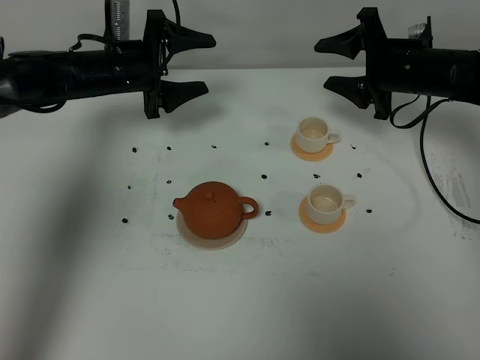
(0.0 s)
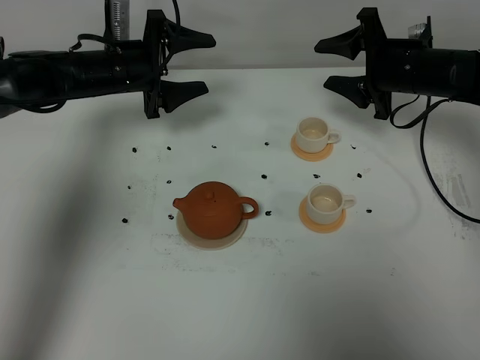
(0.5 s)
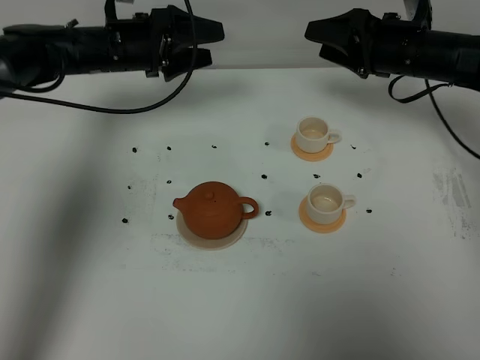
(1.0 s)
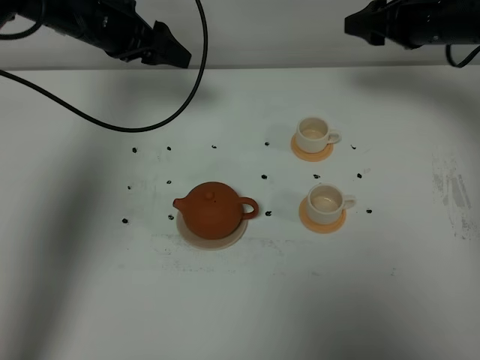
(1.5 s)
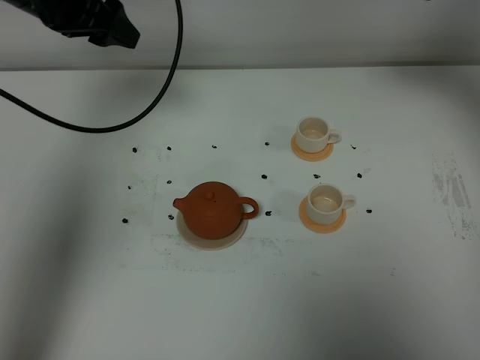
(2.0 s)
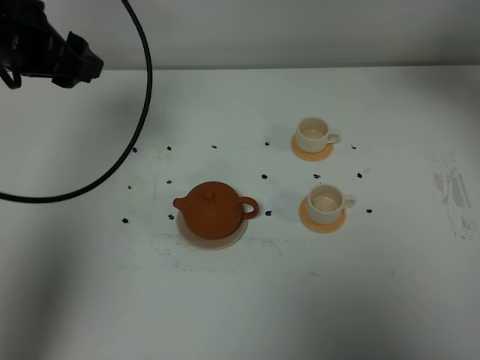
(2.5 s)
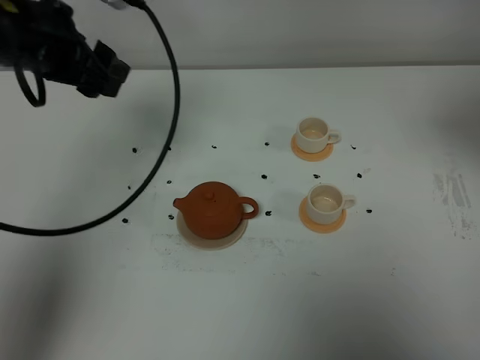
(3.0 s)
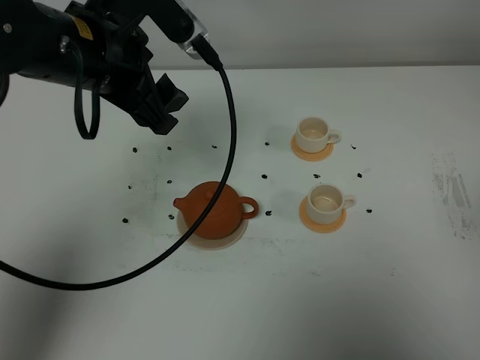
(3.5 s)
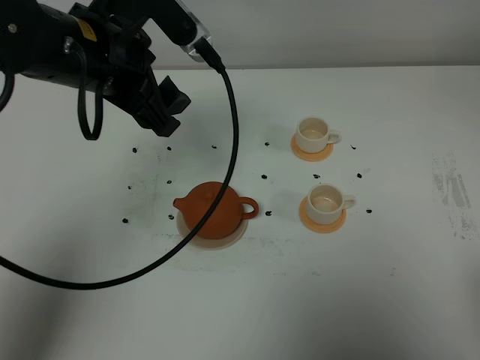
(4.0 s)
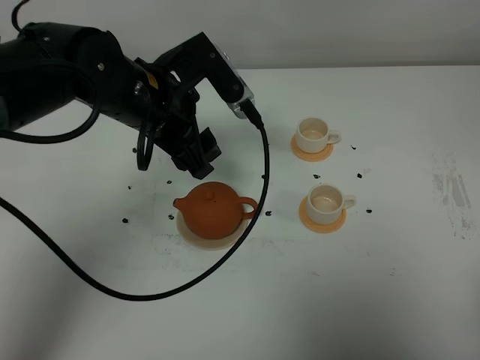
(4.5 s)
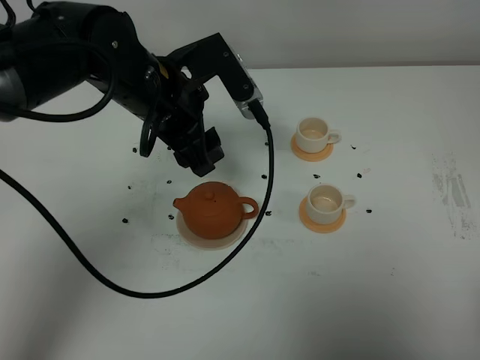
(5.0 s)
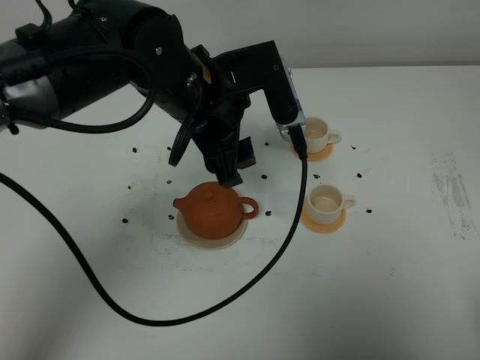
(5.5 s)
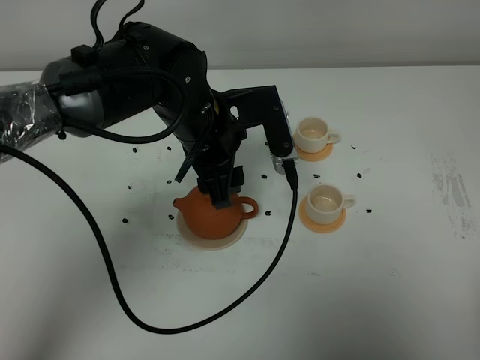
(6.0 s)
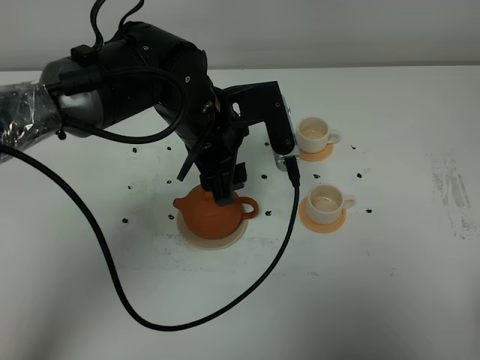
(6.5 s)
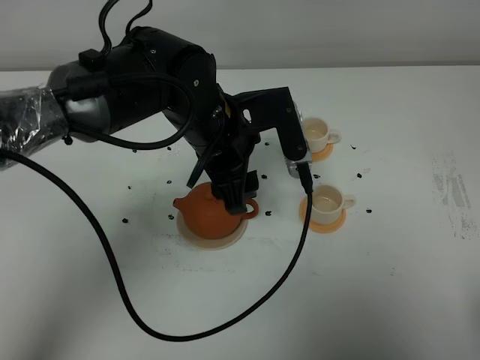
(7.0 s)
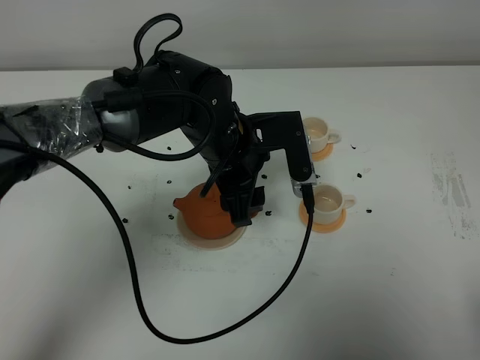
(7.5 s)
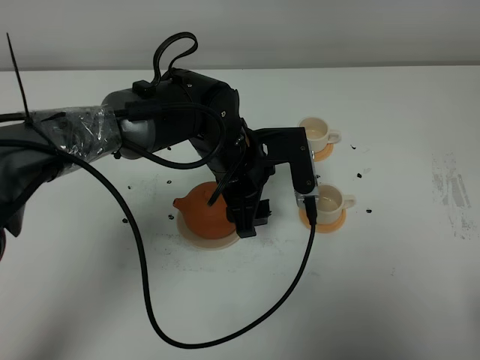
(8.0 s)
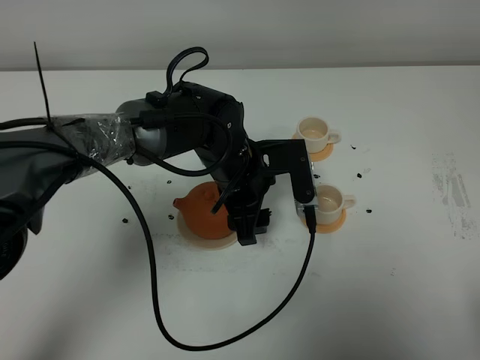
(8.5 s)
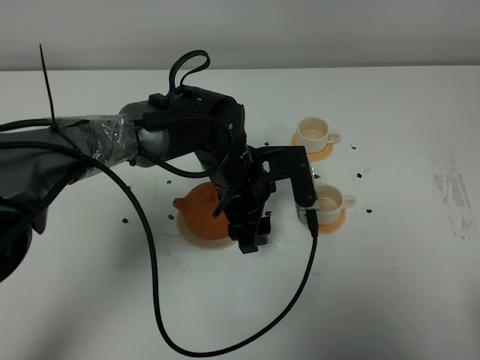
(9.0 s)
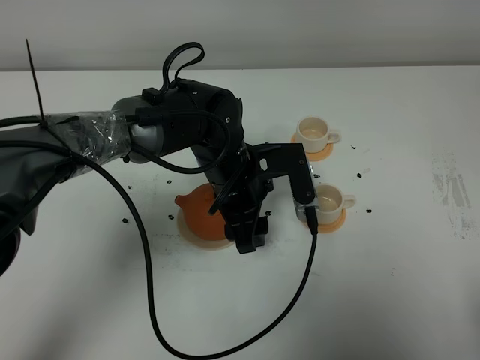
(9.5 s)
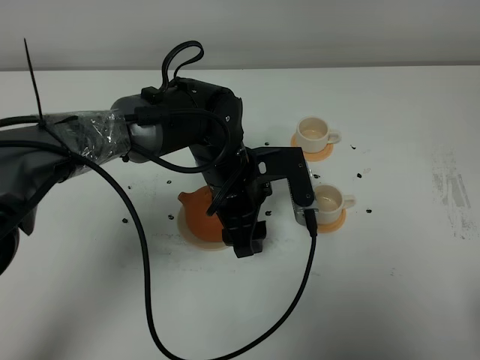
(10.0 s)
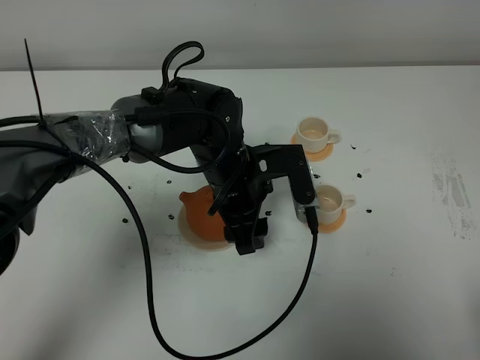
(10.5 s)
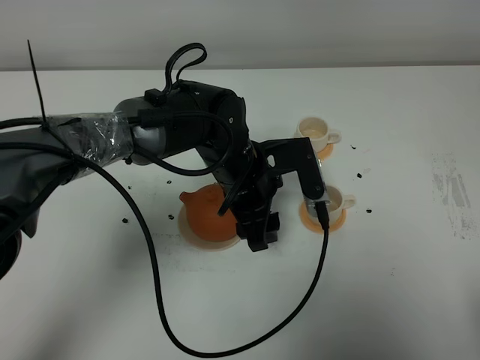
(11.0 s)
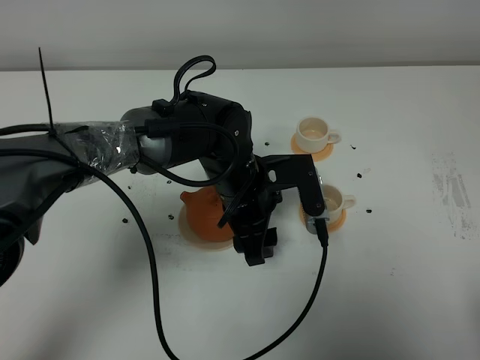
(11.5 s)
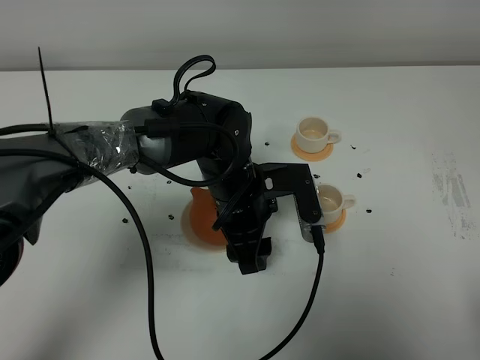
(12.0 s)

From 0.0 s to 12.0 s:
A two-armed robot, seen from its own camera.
Task of the whole recording: grasp the brown teapot and pour the tea into the two white teacups one by one, put the brown teapot back in its original place.
From 0.0 s to 2.0 s: The two grippers go about 15 cm upward.
From 2.0 s to 4.0 s: The right gripper goes approximately 40 cm backward. Meanwhile the left gripper is displaced backward and to the right by about 15 cm.
From 4.0 s to 6.0 s: The left gripper shifts some 15 cm downward and to the right. The right gripper travels downward by some 10 cm.
From 6.0 s to 8.0 s: The left gripper shifts approximately 5 cm downward.
From 8.0 s to 12.0 s: The grippers move only a little.

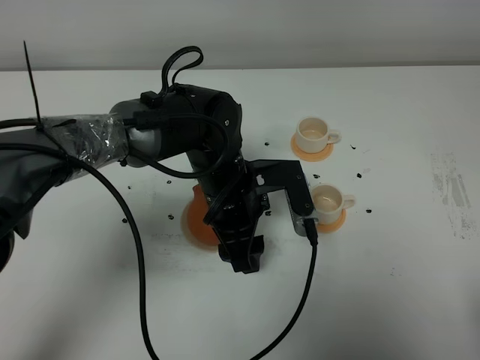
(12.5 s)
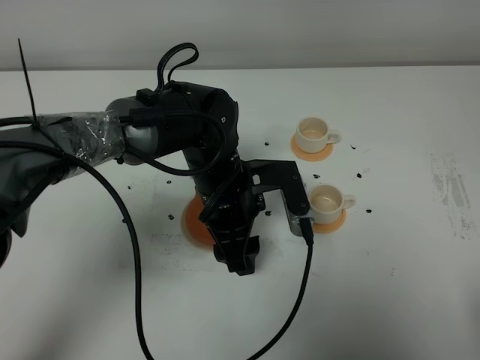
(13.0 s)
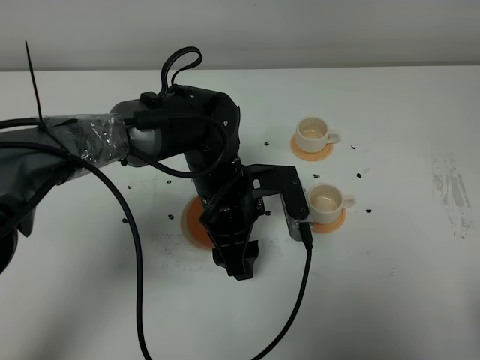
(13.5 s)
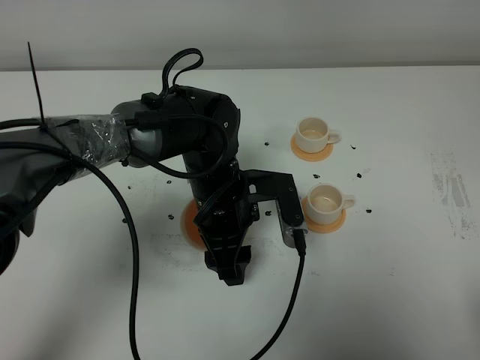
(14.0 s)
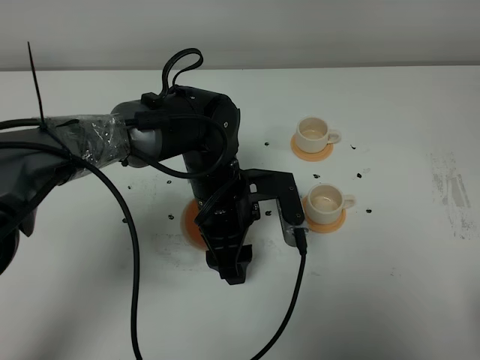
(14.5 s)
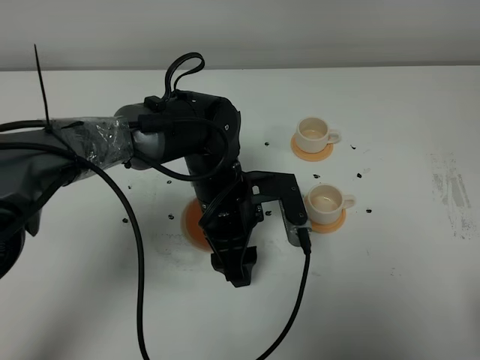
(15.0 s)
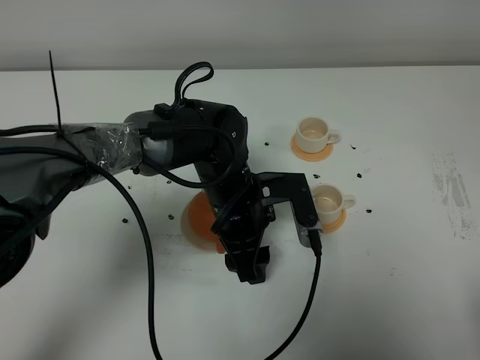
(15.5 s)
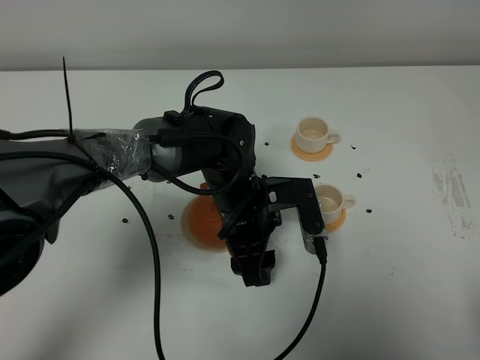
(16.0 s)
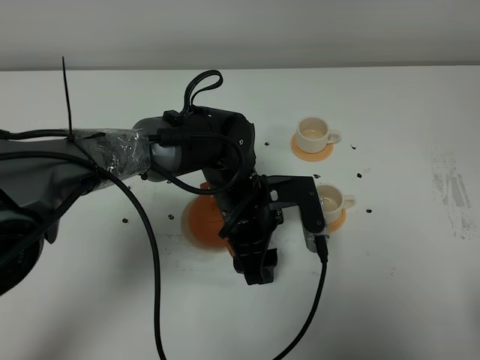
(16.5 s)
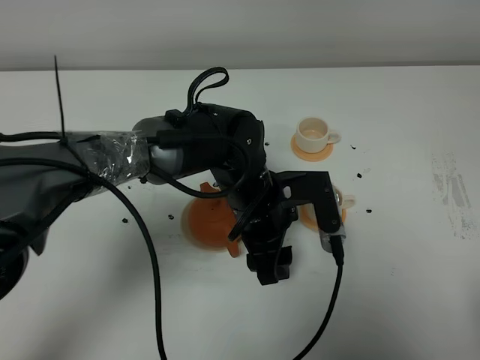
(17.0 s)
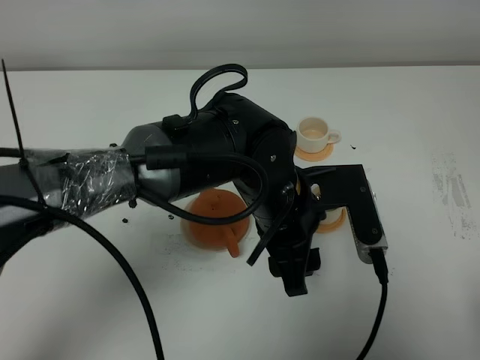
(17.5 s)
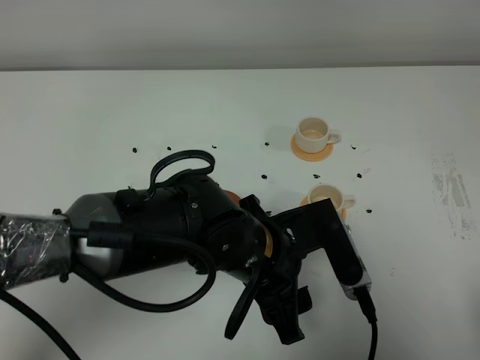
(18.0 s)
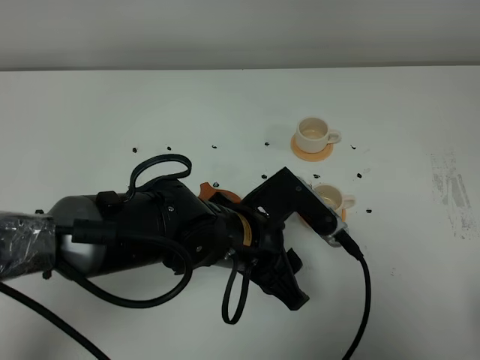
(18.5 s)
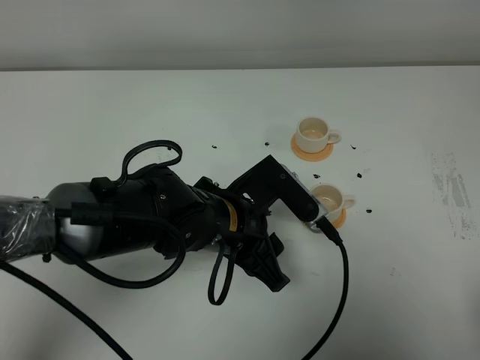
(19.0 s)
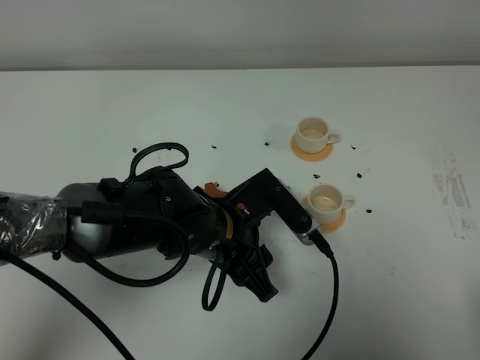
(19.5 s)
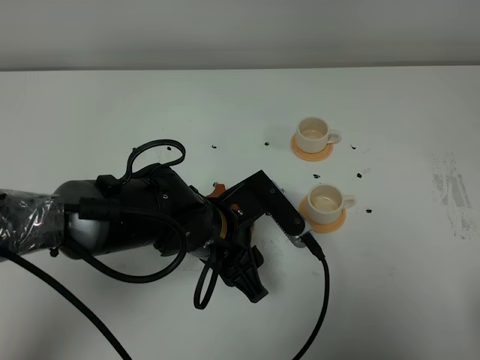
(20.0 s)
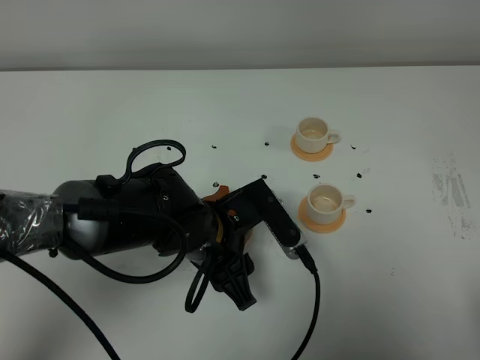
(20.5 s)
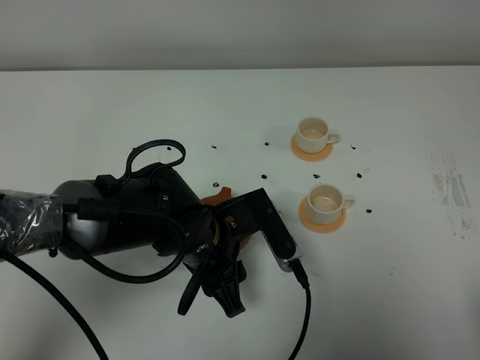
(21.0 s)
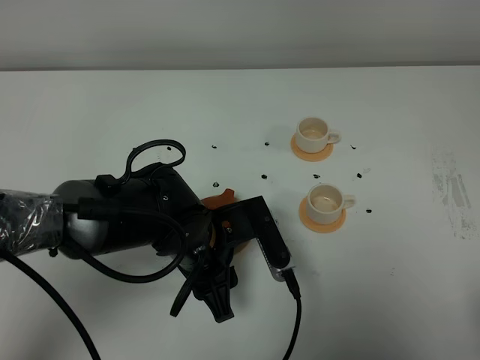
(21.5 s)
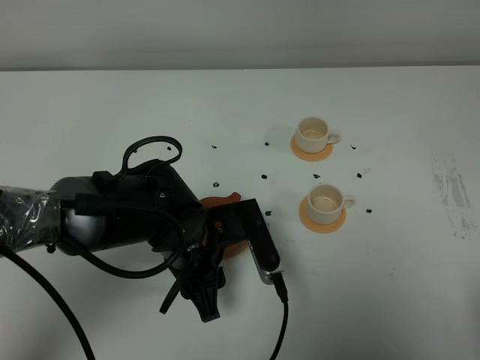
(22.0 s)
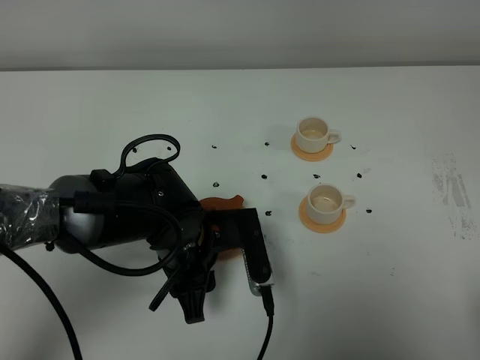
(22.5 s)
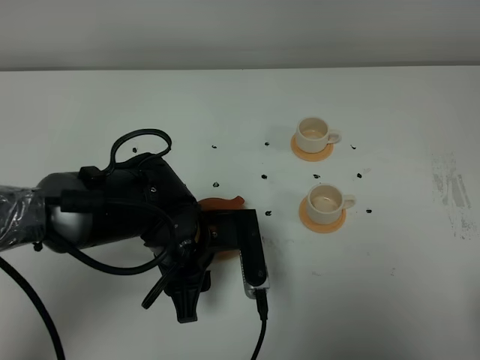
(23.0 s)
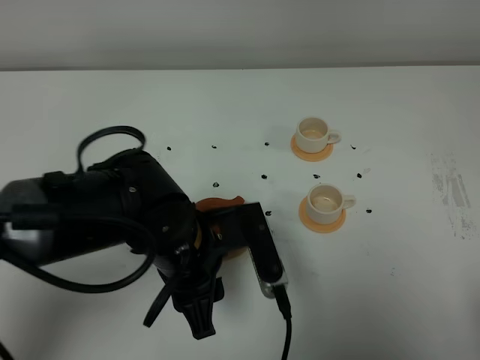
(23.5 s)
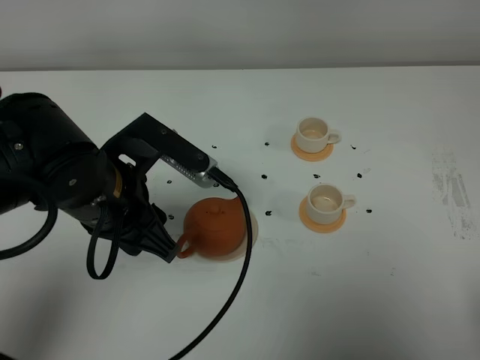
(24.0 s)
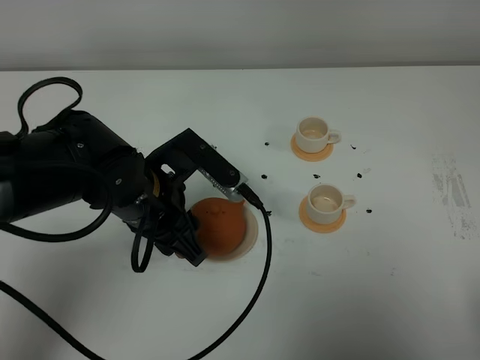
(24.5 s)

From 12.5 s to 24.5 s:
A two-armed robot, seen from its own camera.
Task of the whole recording: grasp the brown teapot and pour the tea into the two white teacups one by one, put the brown teapot back in its original place.
From 12.5 s to 16.5 s: The grippers make only small movements.
From 16.5 s to 18.5 s: The left gripper moves backward, some 10 cm.
From 18.5 s to 20.5 s: There are only small adjustments of the grippers.
From 22.5 s to 24.5 s: The left gripper moves upward, roughly 5 cm.

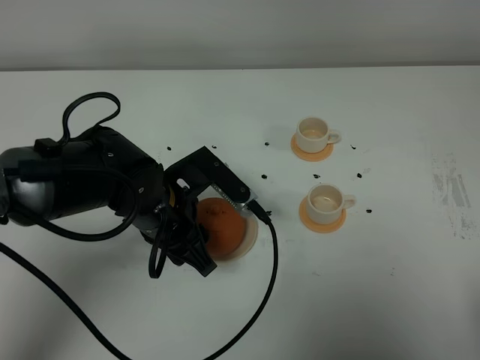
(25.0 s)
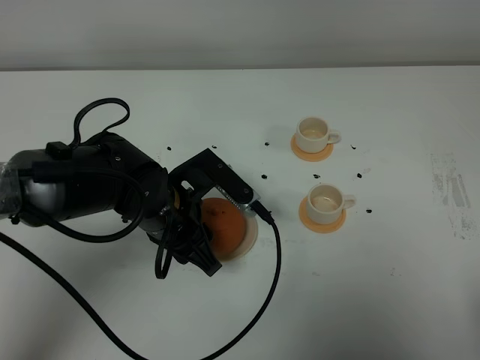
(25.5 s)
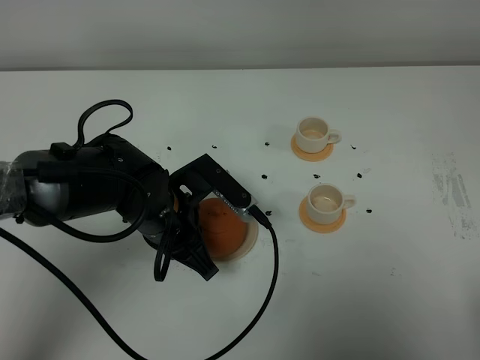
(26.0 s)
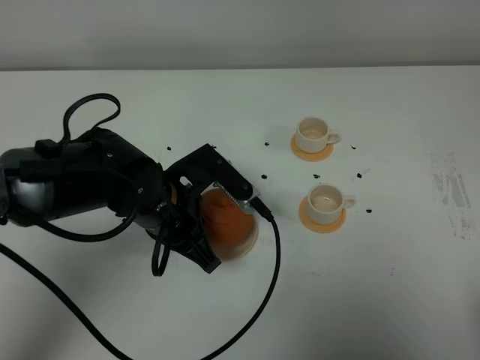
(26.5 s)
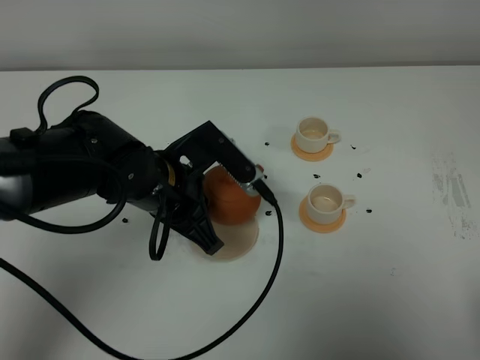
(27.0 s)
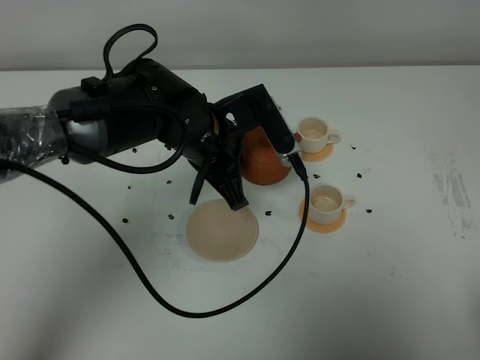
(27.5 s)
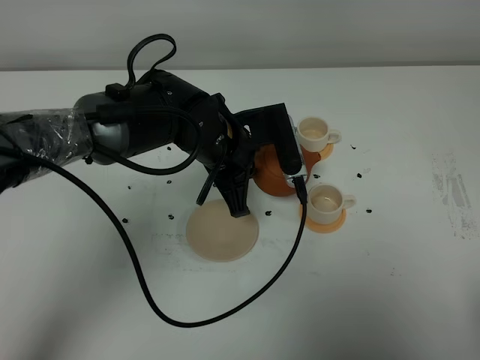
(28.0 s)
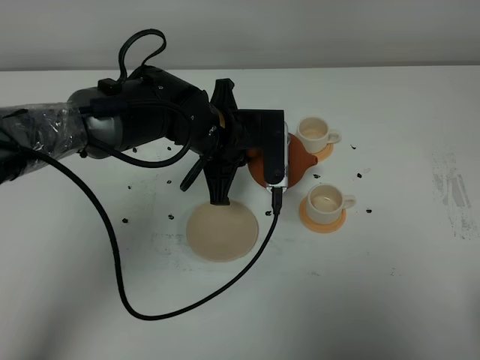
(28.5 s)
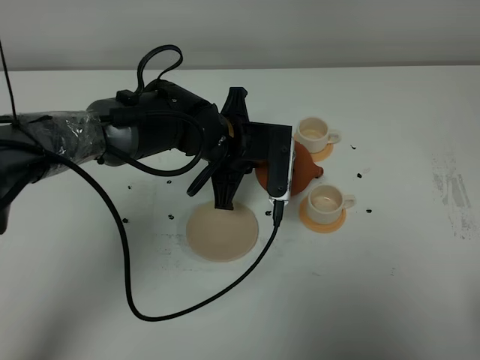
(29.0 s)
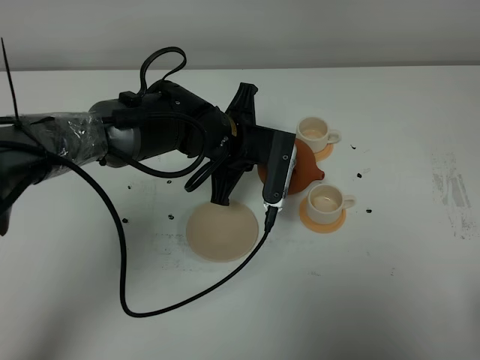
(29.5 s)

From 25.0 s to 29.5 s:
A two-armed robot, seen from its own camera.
Task of the whole recording: grasp the brown teapot and pour the tea into the two white teacups one by one, put the brown teapot back in its original place.
From 25.0 s to 27.0 s: The left gripper closes its fingers.
From 27.0 s to 29.5 s: The left gripper shifts some 10 cm forward and to the right.
